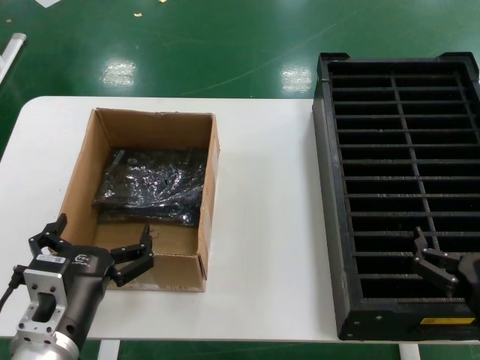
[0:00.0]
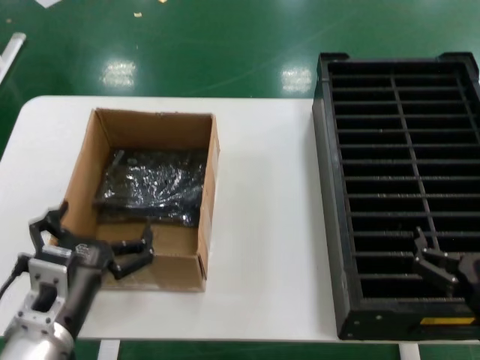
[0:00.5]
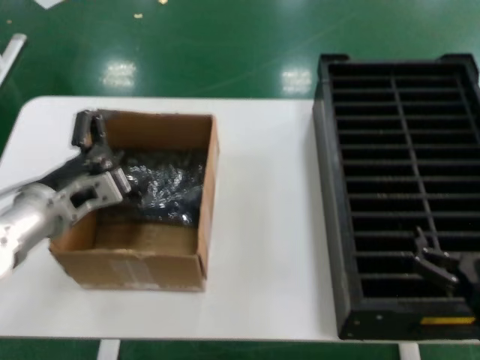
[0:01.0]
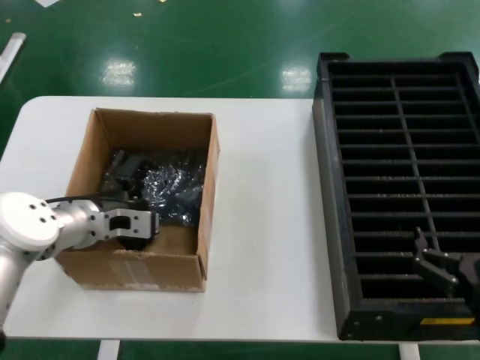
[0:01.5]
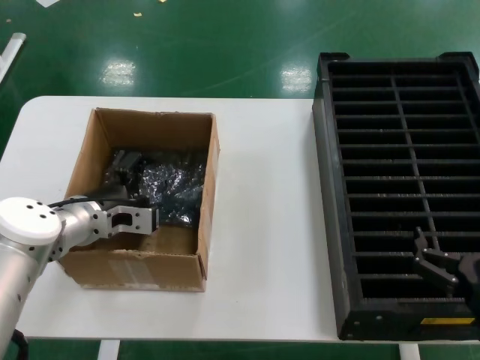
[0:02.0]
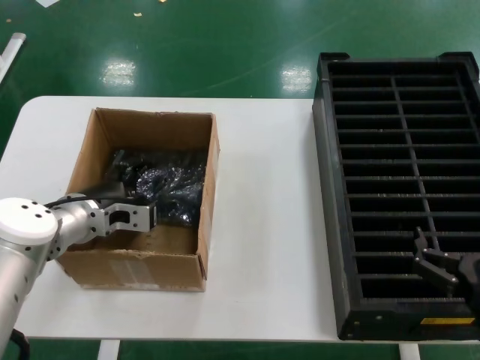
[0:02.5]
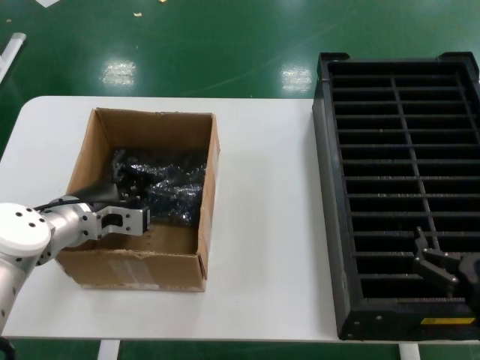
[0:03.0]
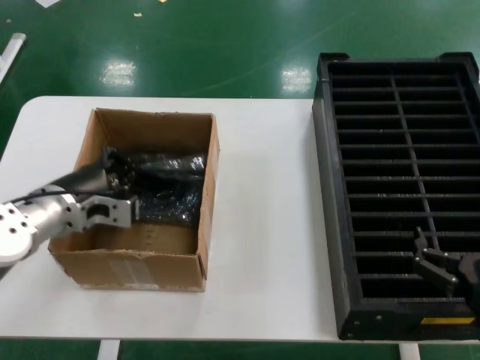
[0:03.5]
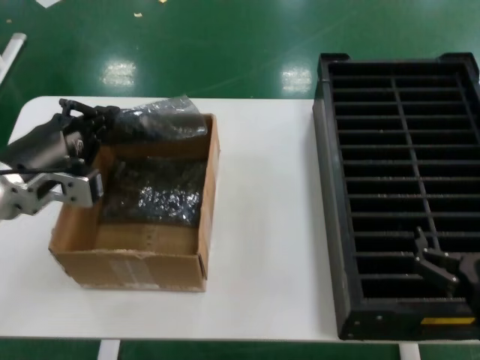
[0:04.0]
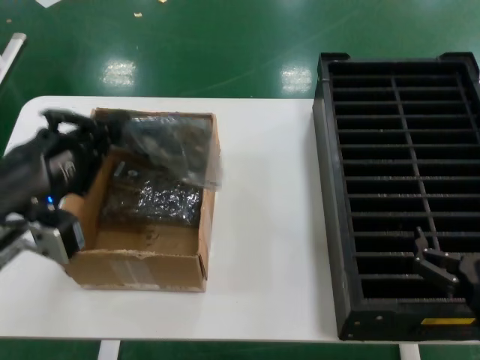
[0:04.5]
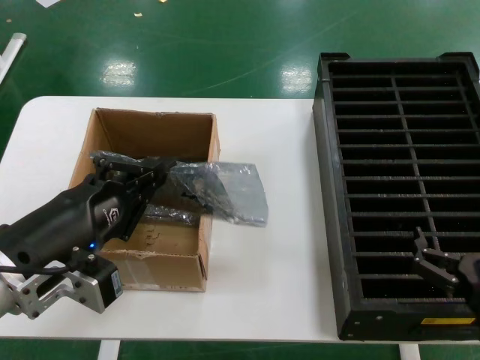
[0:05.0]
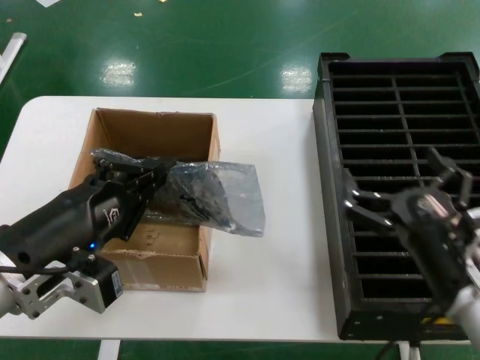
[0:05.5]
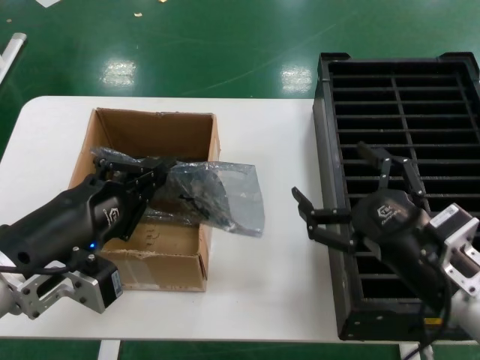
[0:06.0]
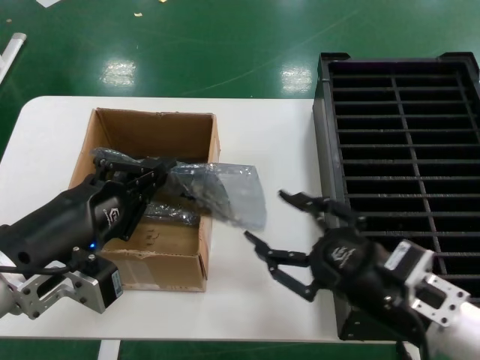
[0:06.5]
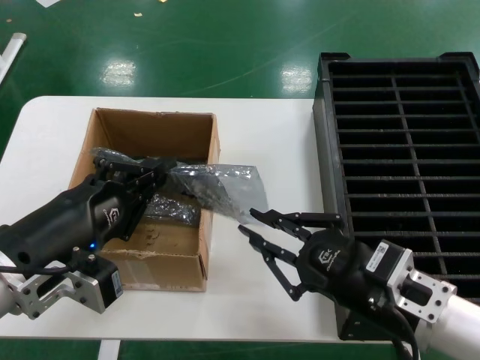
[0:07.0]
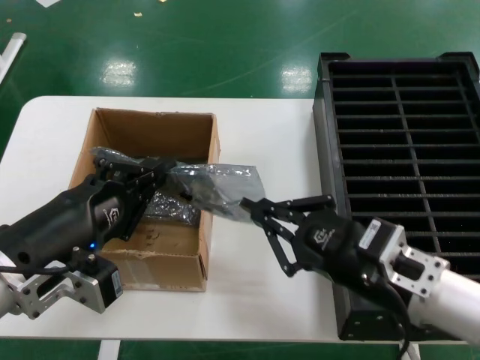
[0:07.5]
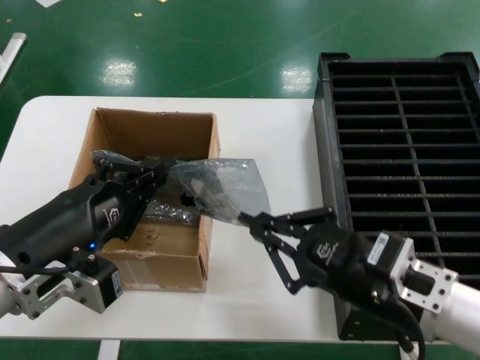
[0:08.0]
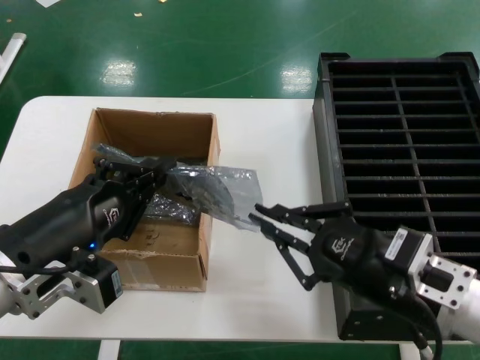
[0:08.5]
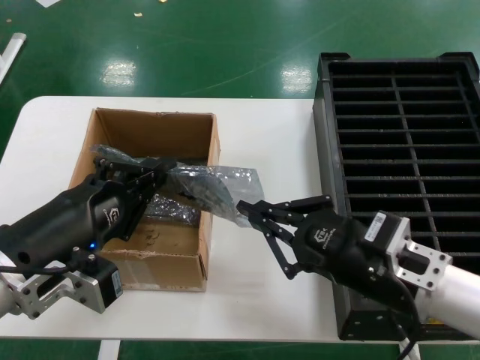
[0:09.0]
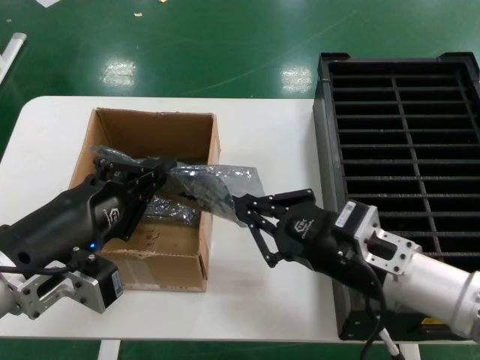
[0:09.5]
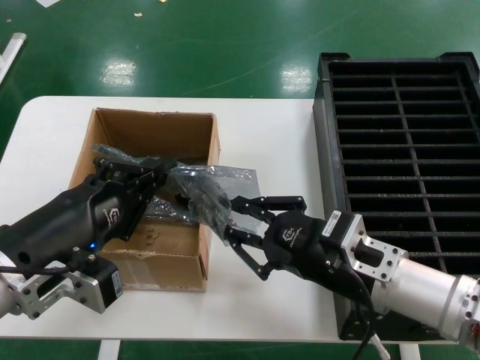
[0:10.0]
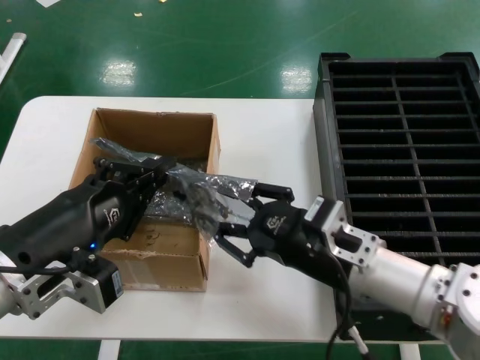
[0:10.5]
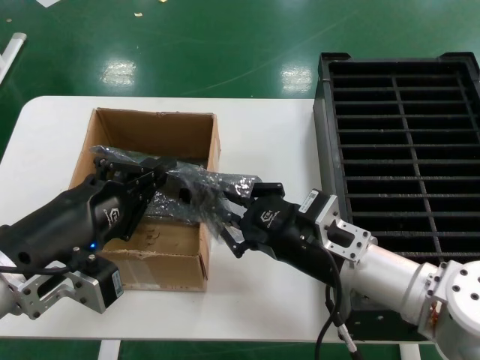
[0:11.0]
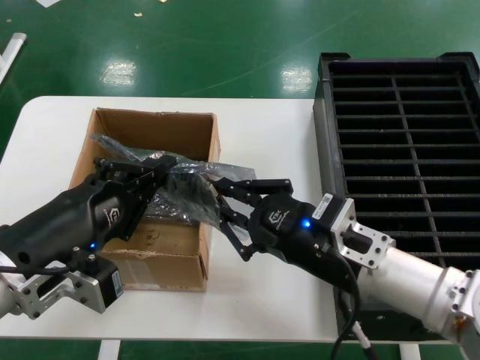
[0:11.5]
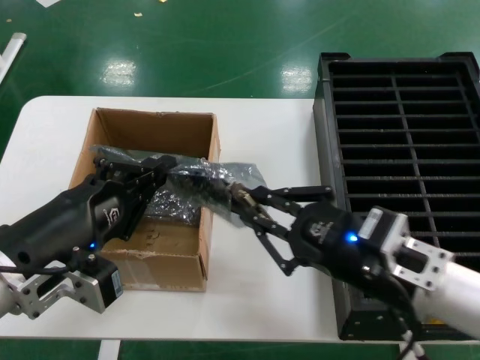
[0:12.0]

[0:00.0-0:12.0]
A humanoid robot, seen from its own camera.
Task of the whole recording: take out graphics card from box remove packaging put into black container.
Step, 0:00.0 to 0:03.0: Grasp the bag.
Step, 0:03.5 to 0:04.5: Lift the bag.
0:00.0 to 0:02.0: The left hand is displaced forward by roughly 20 cm.
0:02.0 to 0:04.0: The left hand goes approximately 15 cm backward and upward.
0:04.0 to 0:06.0: The left hand shifts some 15 cm backward, while the right hand is displaced upward and to the left by about 10 cm.
0:08.0 to 0:10.0: The right hand moves roughly 5 cm.
0:10.0 to 0:12.0: The right hand shifts by roughly 5 cm.

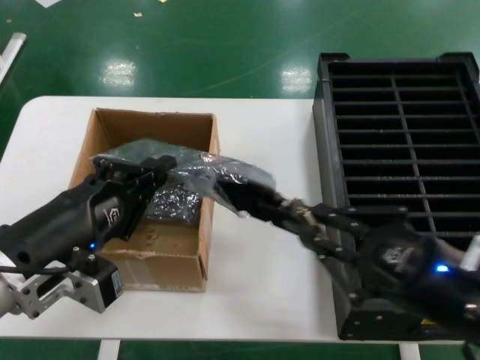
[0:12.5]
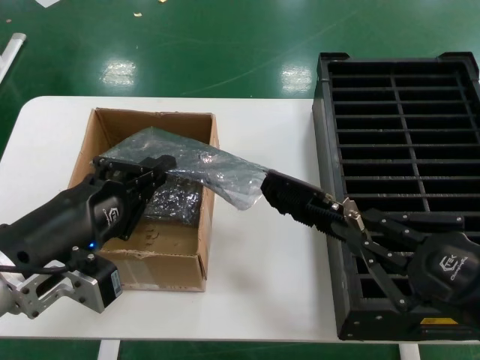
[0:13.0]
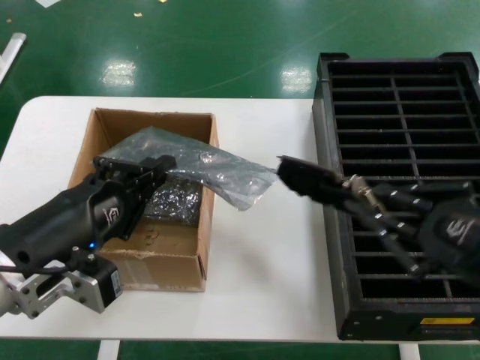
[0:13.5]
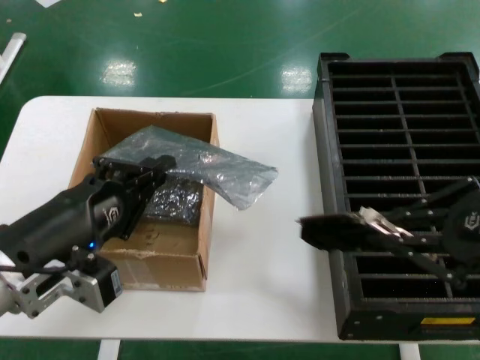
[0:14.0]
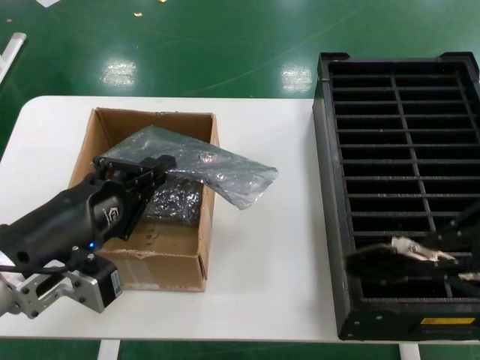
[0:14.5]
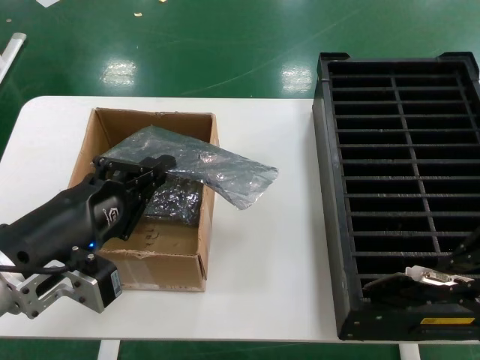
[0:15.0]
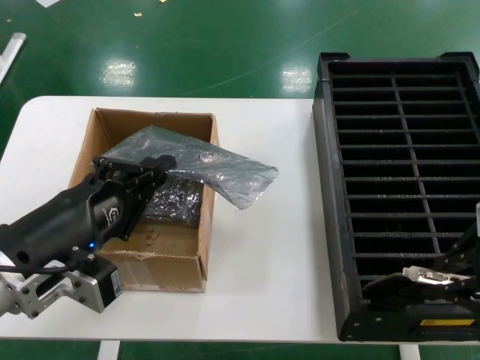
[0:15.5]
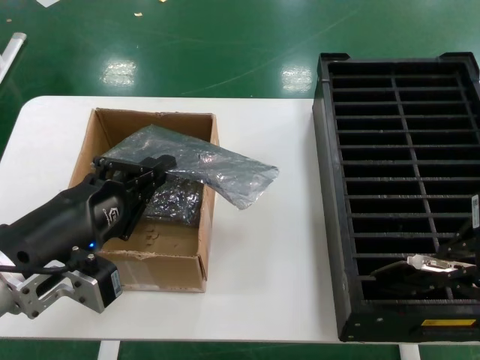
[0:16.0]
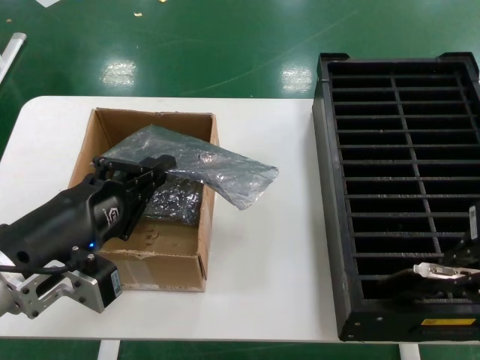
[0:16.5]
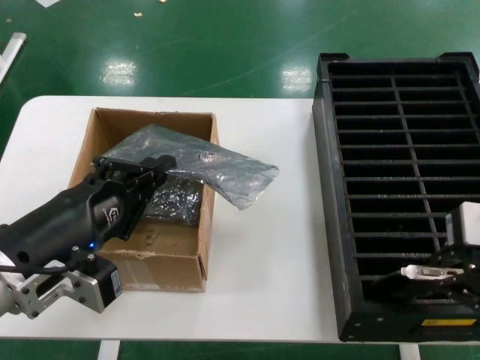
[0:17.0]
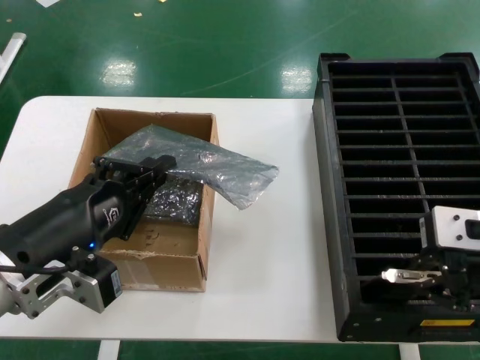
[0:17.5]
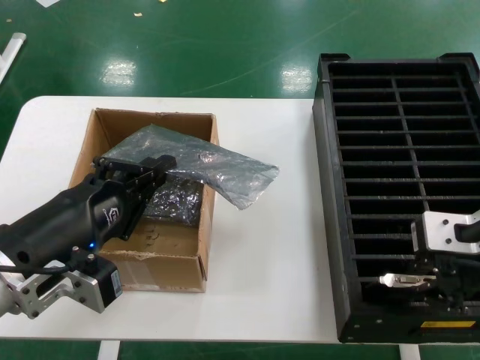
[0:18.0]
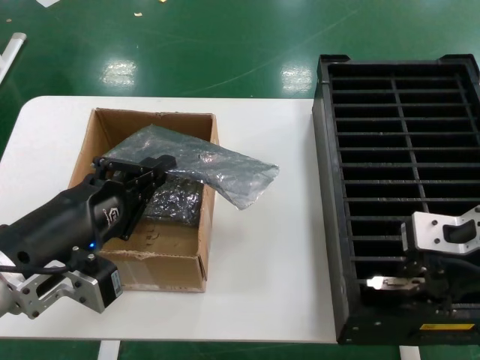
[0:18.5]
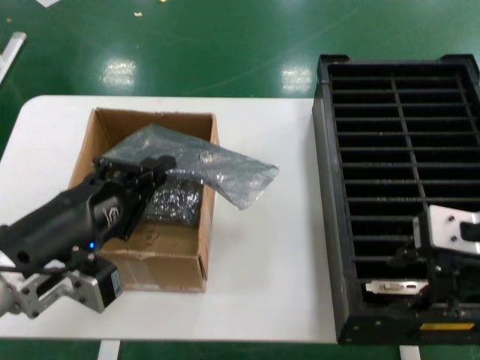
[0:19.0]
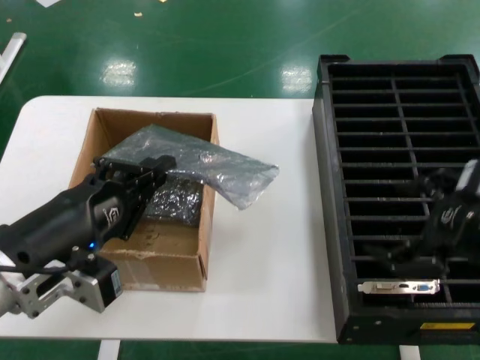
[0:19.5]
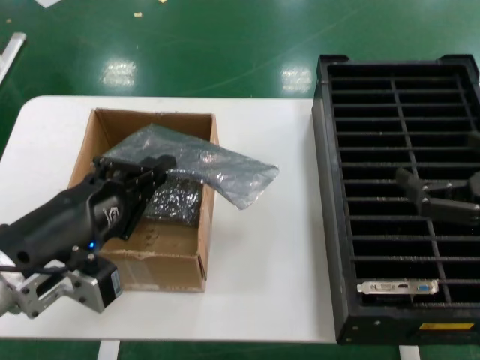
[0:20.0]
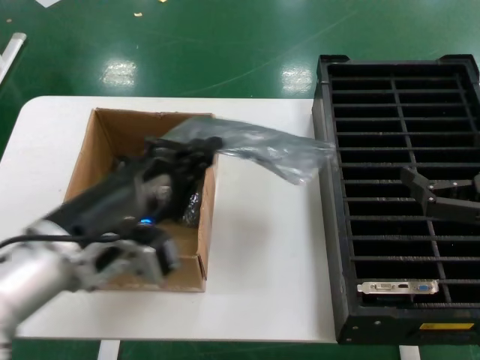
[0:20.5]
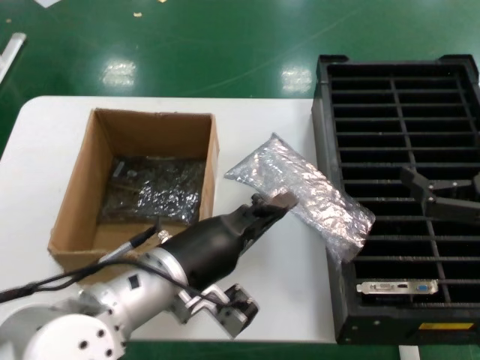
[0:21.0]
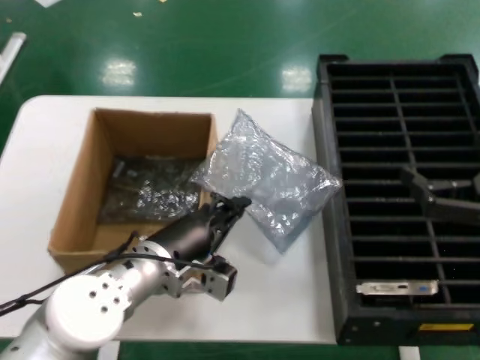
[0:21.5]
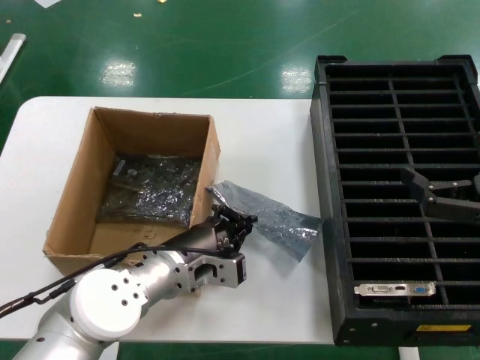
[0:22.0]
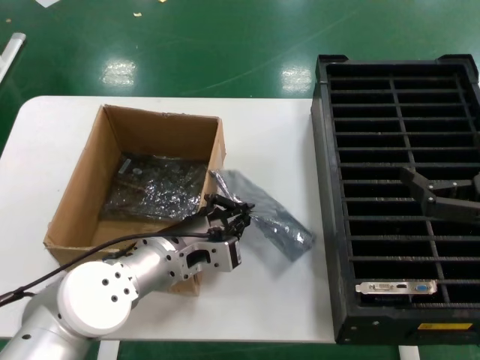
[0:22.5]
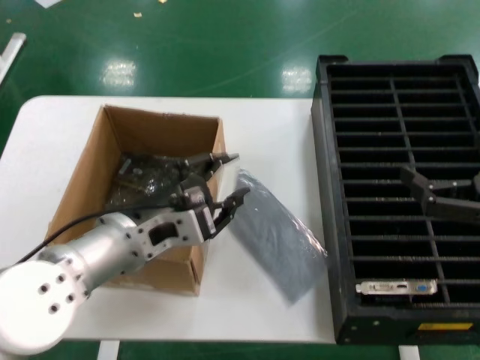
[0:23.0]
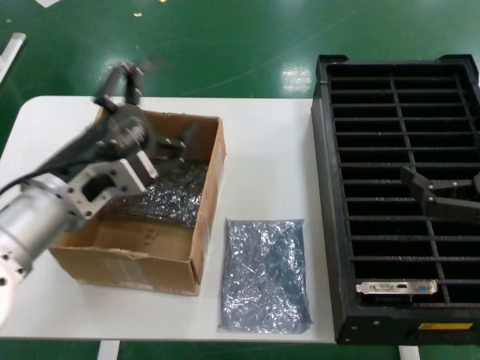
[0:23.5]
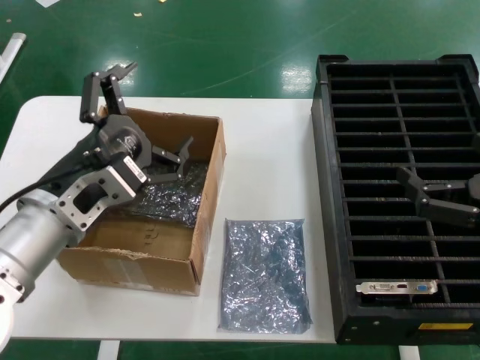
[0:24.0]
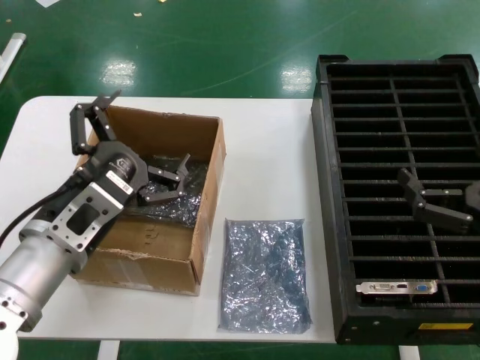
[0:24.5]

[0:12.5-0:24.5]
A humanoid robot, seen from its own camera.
Task of the whole recording: take out graphics card from box remove packaging put into black container.
Step, 0:14.0 to 0:19.0: Place the hard disk in the hard disk enclosure.
0:12.5 to 0:14.5: The right hand heads upward, covering roughly 15 cm.
0:14.5 to 0:16.5: The hands stay close to where they were, moving slightly.
0:16.5 to 0:18.5: The right hand travels forward and downward by approximately 10 cm.
0:18.5 to 0:20.5: The right hand is displaced to the right, backward and downward by about 15 cm.
0:20.5 to 0:22.5: The left hand is displaced forward and downward by approximately 20 cm.
0:22.5 to 0:24.5: The left hand travels backward, upward and to the left by approximately 15 cm; the right hand shifts by about 5 cm.

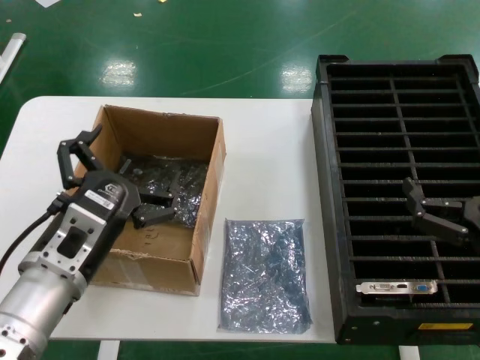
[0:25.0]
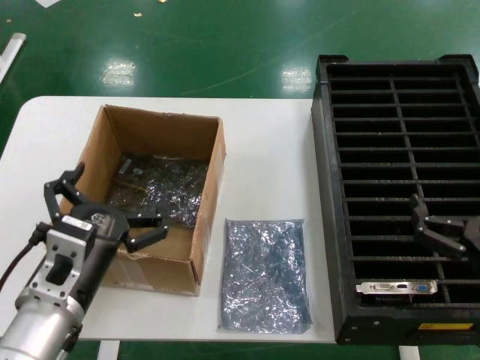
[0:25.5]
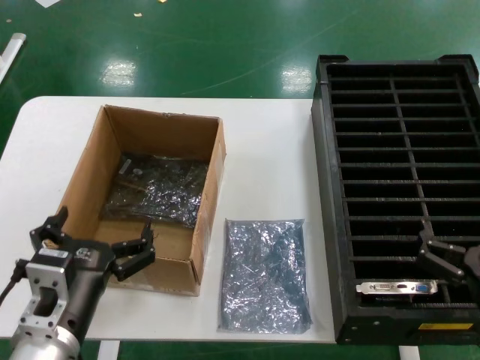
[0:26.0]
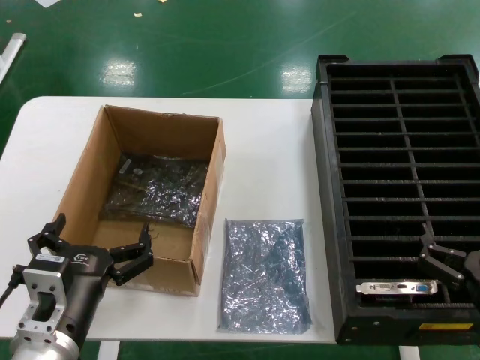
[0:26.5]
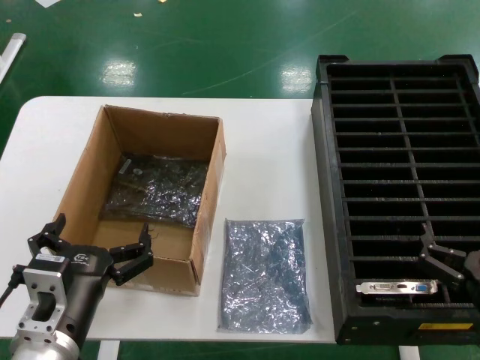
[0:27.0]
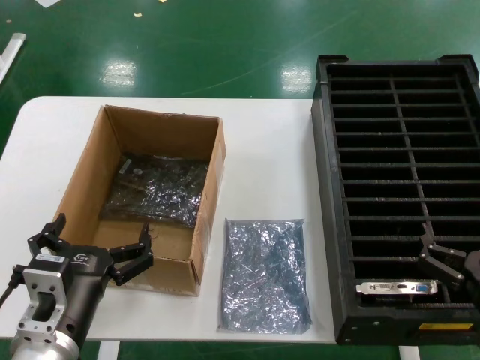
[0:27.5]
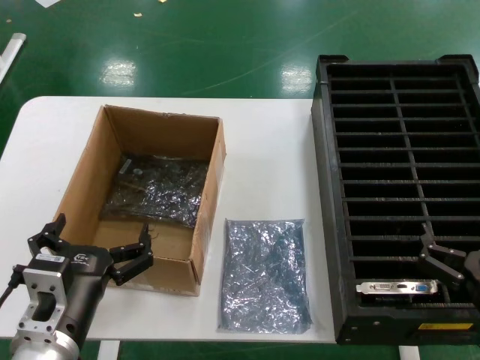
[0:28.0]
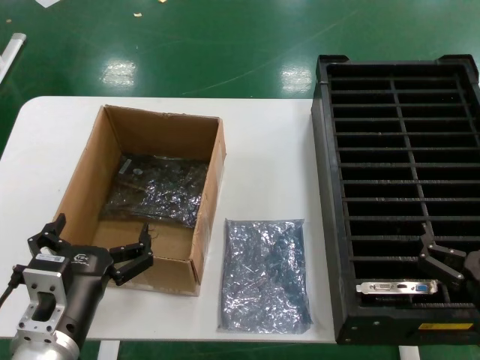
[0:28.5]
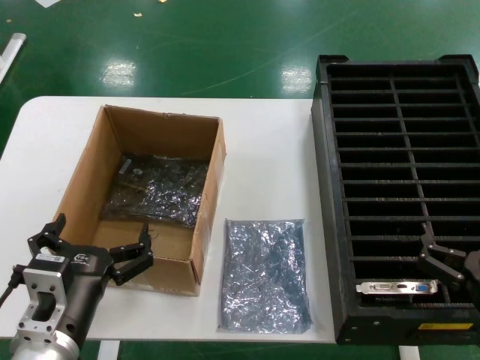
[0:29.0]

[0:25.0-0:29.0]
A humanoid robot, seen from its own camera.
Task of the whole recording: take out graphics card from box remove packaging put into black container.
0:25.0 to 0:27.0: The two hands go approximately 5 cm downward.
0:27.0 to 0:29.0: Both hands stay about where they are.
